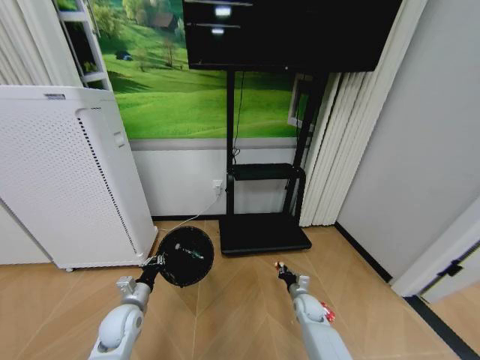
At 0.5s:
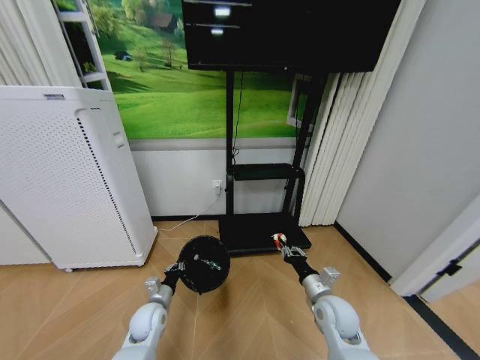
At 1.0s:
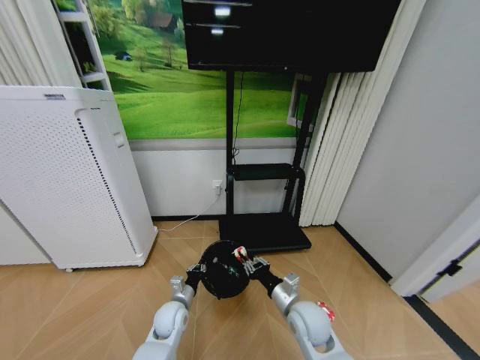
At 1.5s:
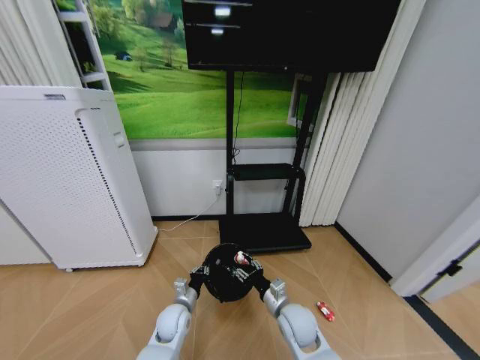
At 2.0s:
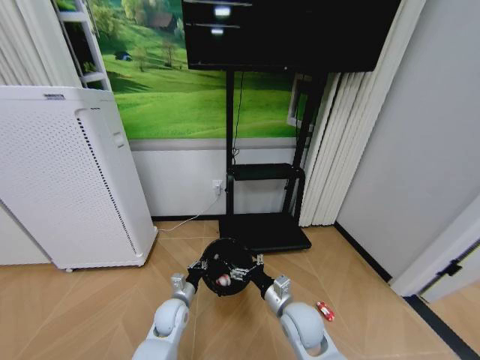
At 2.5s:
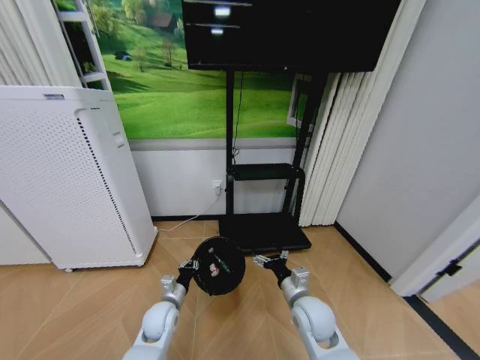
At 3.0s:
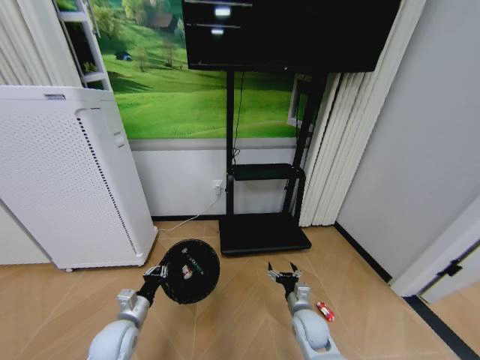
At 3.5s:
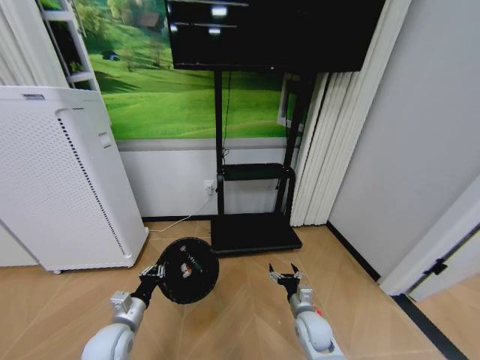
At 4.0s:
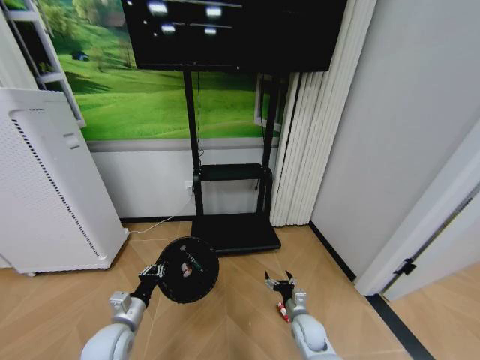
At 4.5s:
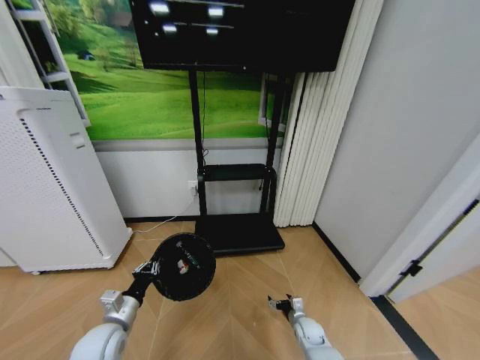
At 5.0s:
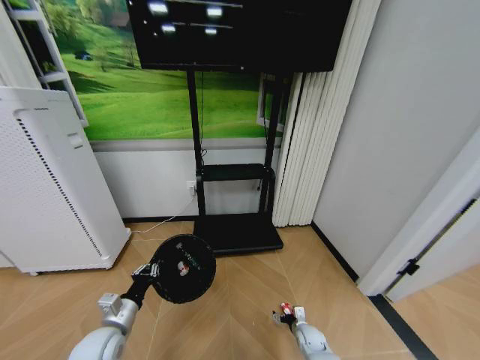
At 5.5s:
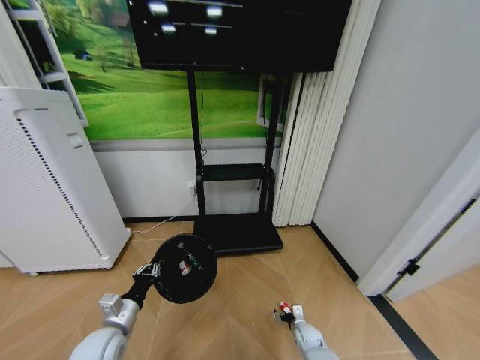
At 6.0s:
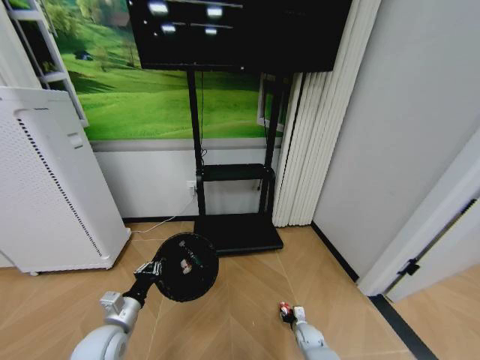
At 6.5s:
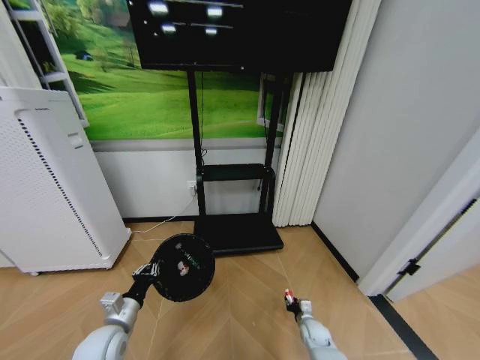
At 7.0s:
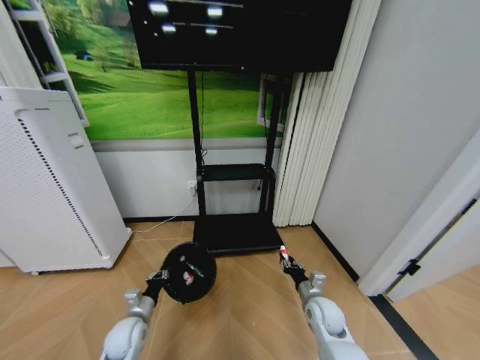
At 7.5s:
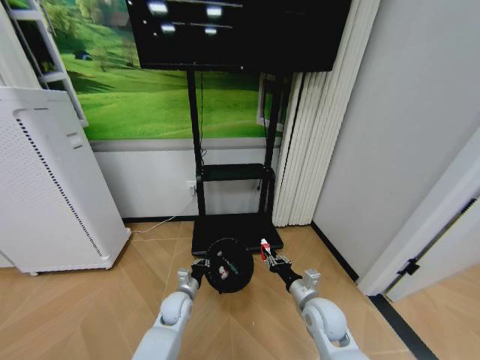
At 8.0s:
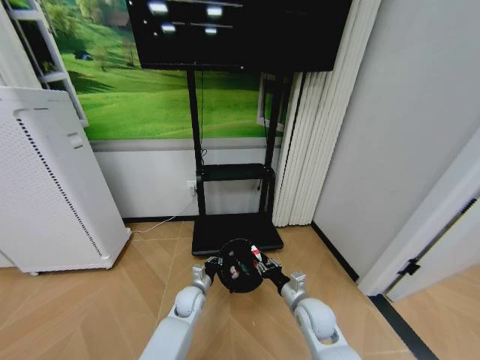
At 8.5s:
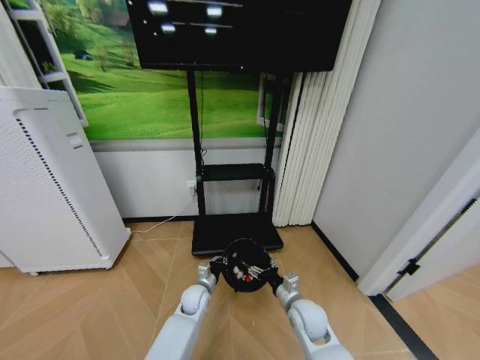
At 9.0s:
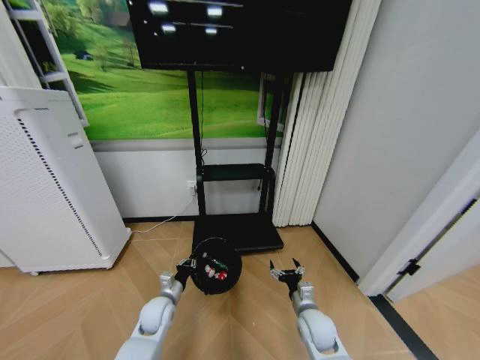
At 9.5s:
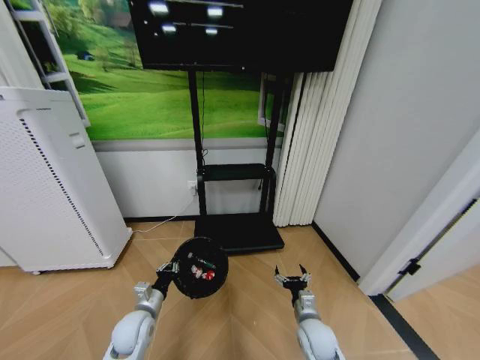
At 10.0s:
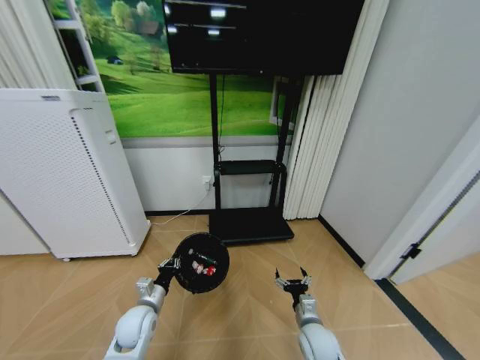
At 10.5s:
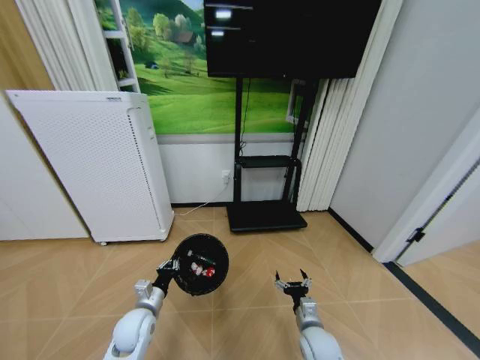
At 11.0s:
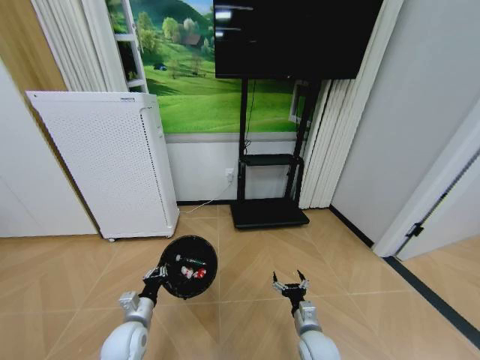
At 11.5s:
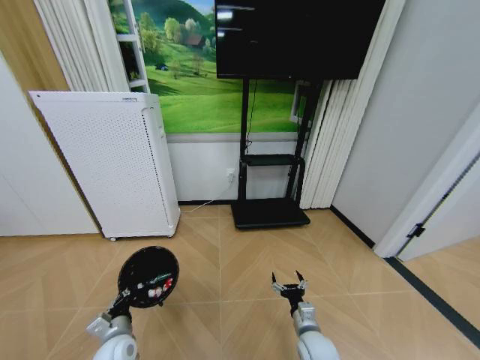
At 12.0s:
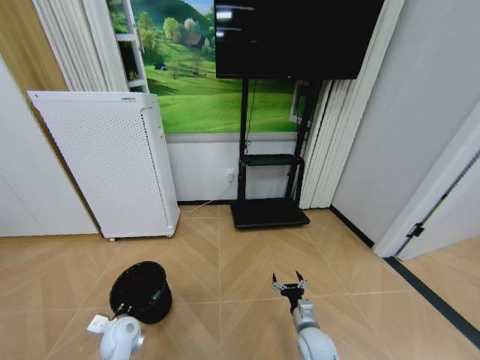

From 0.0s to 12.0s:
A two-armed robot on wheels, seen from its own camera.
Task of the whole recording: Pick up the trash bin and place the garbage on the floor into it.
From 0.0s to 2.0s: The left gripper goes some 10 cm to the right. The right gripper swings up and down, roughly 15 cm each way, with 2 reversals, and opens.
From 2.0s to 4.0s: The right gripper goes some 15 cm downward and to the right. The left gripper moves to the left, backward and upward, about 15 cm.
From 4.0s to 6.0s: The right gripper shifts about 15 cm downward and to the right, and closes up.
From 6.0s to 8.0s: The left gripper heads to the right, forward and downward, covering approximately 25 cm. Meanwhile the right gripper shifts about 25 cm upward, and closes up.
From 8.0s to 10.0s: The left gripper goes some 15 cm to the left, backward and upward, while the right gripper travels downward by approximately 5 cm, and opens its fingers.
From 10.0s to 12.0s: The left gripper heads to the left, covering approximately 5 cm.

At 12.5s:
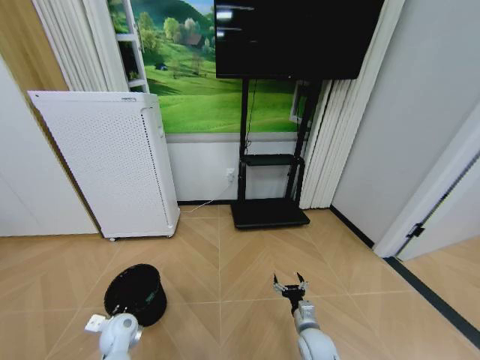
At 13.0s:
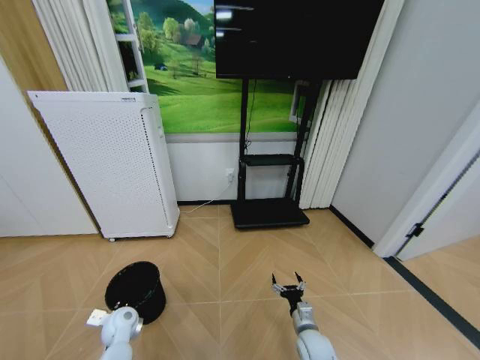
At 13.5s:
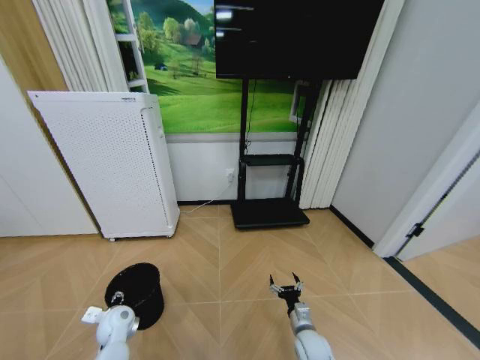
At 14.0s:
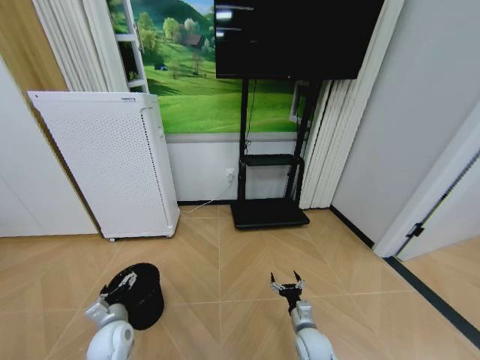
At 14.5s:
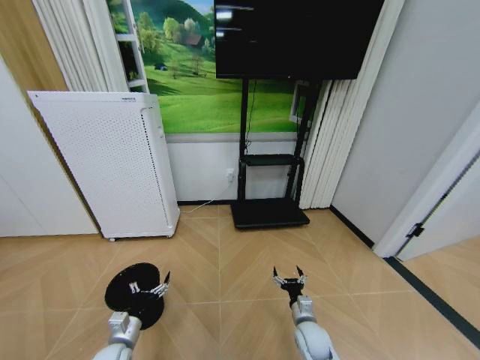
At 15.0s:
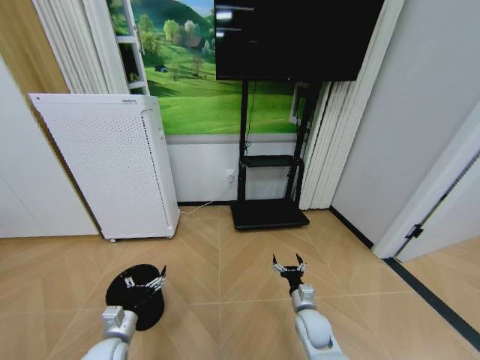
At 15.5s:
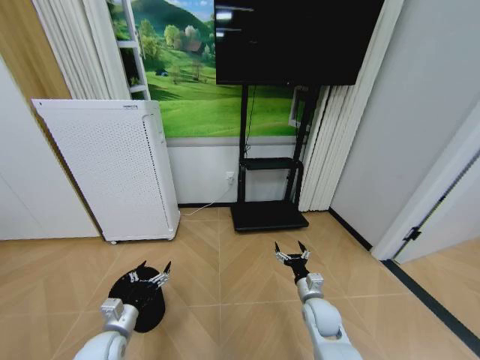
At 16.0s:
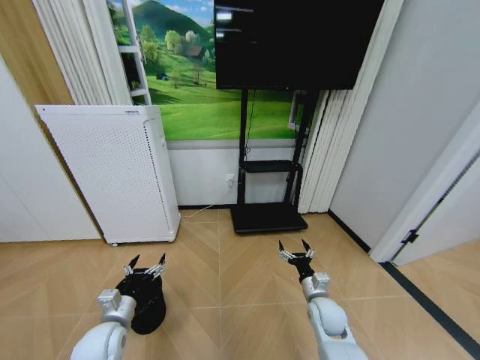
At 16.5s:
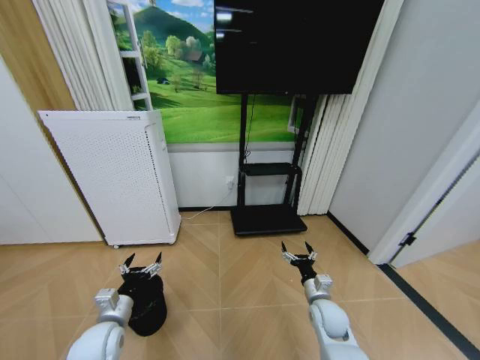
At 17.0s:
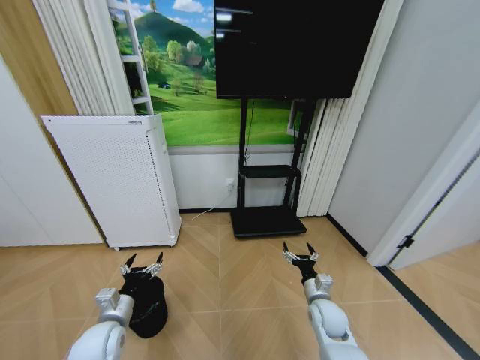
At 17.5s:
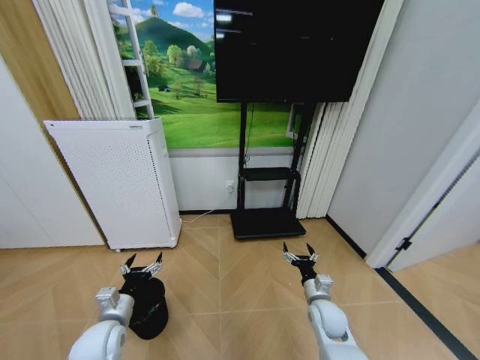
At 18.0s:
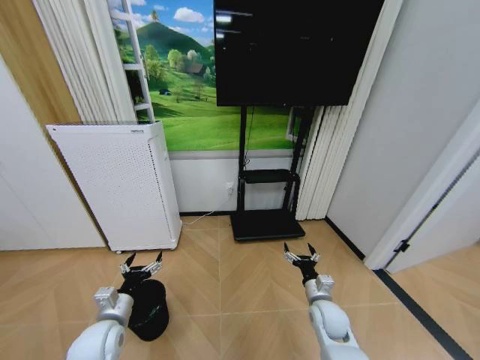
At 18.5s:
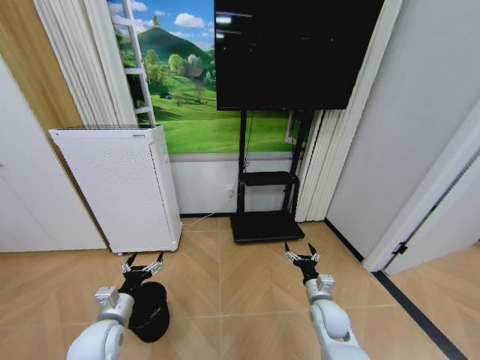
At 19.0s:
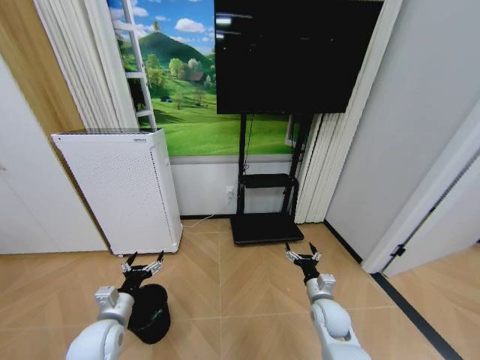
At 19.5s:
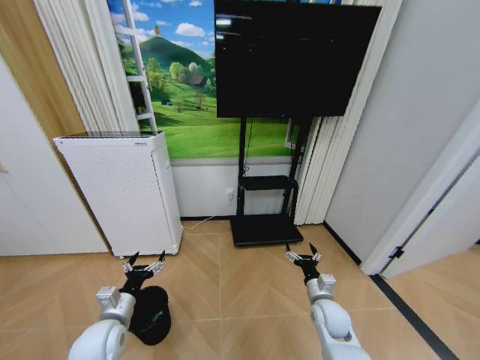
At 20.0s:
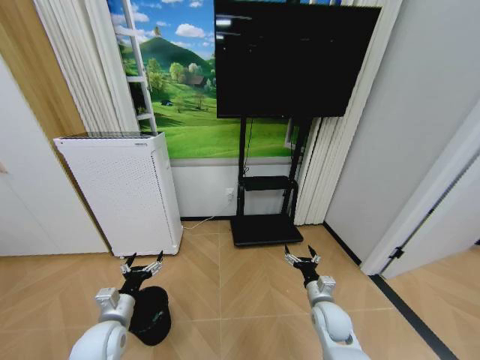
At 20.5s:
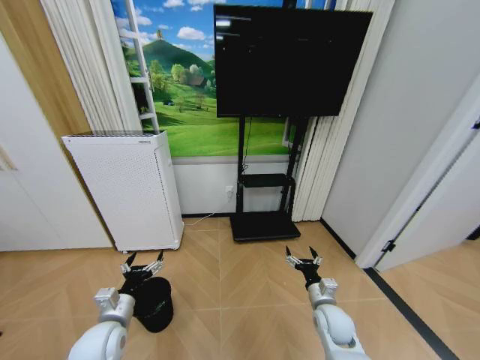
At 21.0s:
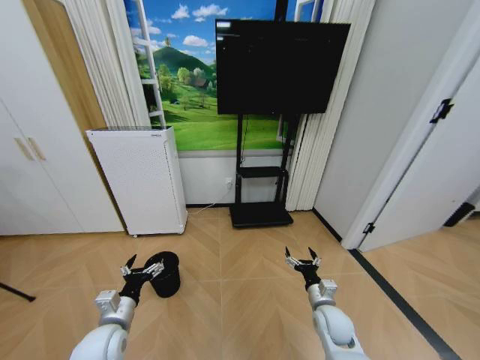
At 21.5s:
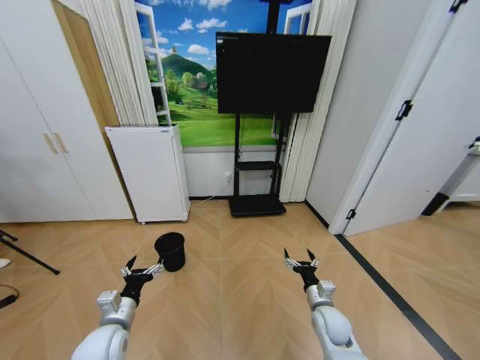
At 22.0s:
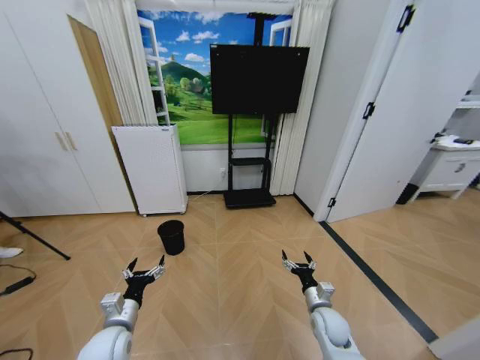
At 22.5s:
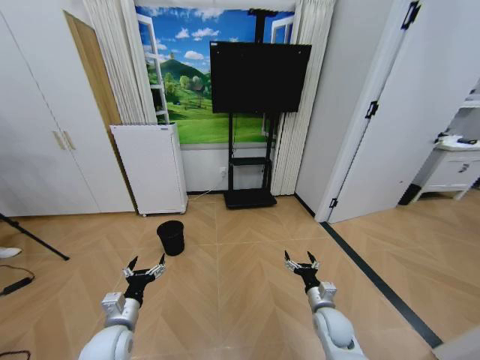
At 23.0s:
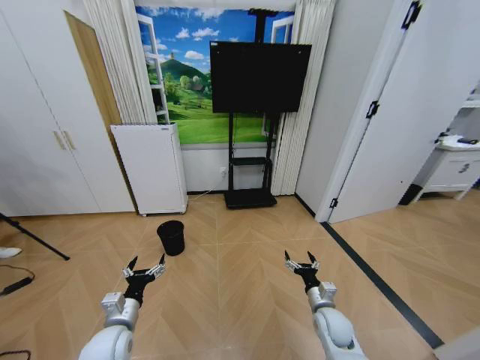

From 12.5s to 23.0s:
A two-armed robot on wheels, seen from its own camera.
Task of the whole recording: Pick up the trash bin and place the garbage on the floor into it.
From 12.5s to 14.5s: The left gripper shifts approximately 10 cm backward, and opens.
From 14.5s to 16.5s: The two grippers go roughly 10 cm upward.
From 16.5s to 19.0s: Both grippers stay about where they are.

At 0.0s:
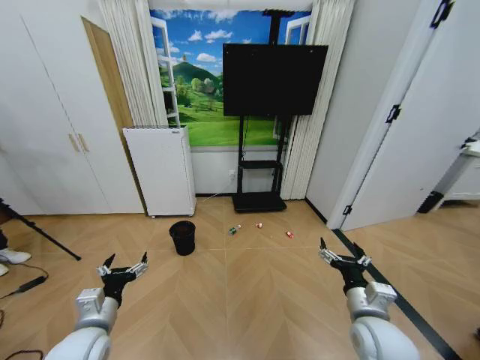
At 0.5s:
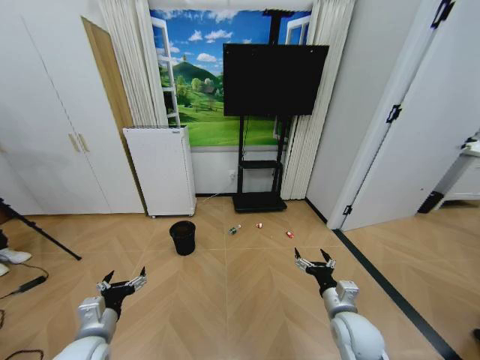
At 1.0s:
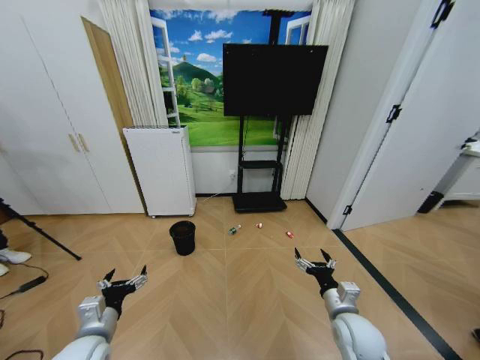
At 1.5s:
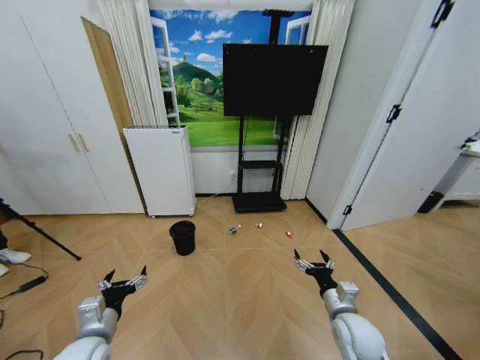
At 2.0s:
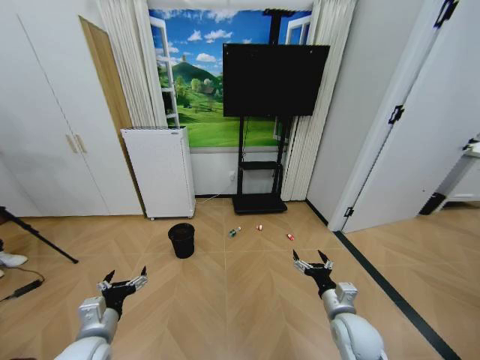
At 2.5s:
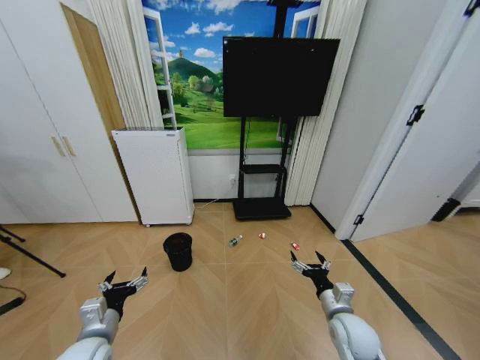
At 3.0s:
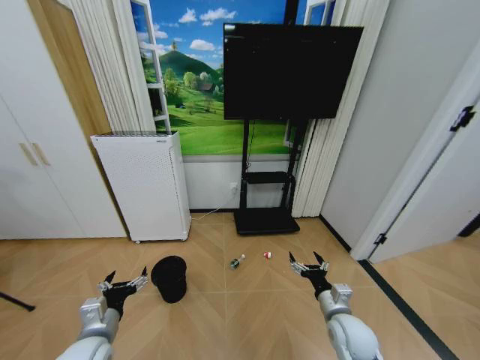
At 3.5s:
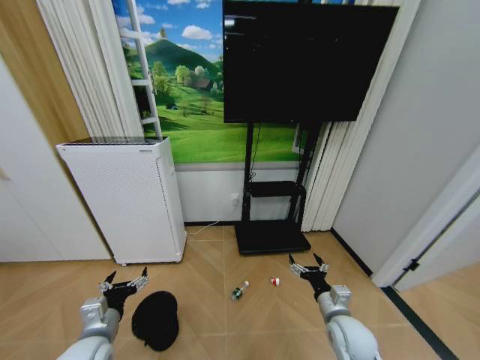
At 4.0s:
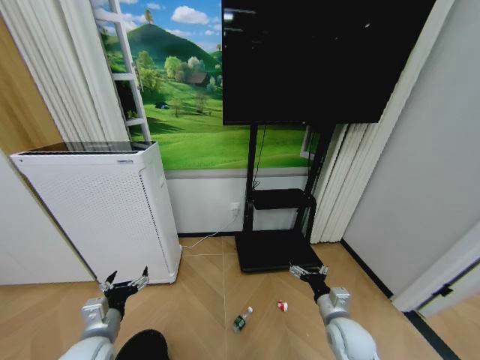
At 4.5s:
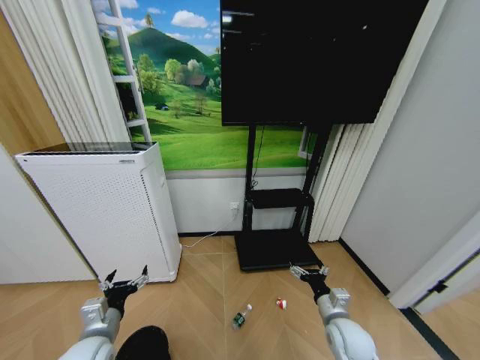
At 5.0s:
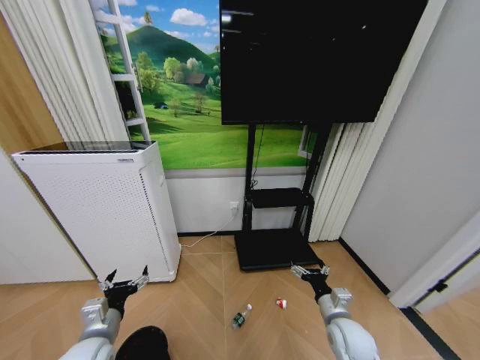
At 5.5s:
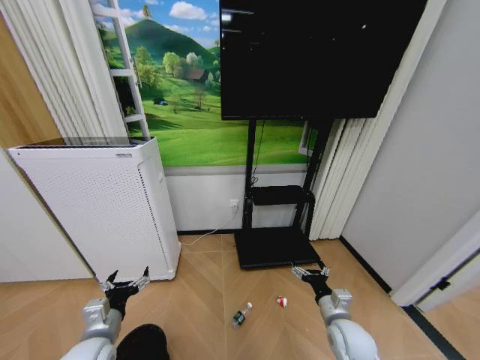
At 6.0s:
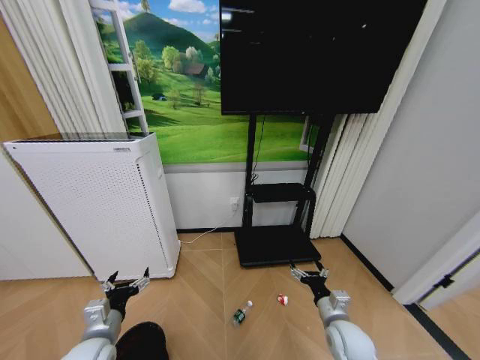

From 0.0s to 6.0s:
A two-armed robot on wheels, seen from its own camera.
Task of the whole recording: Pick up the trash bin and place the garbage on the floor into it.
From 4.0s to 6.0s: Both grippers stay put.
